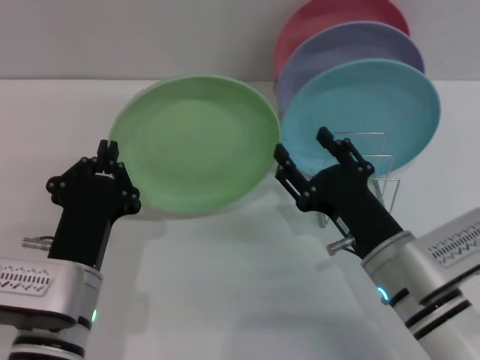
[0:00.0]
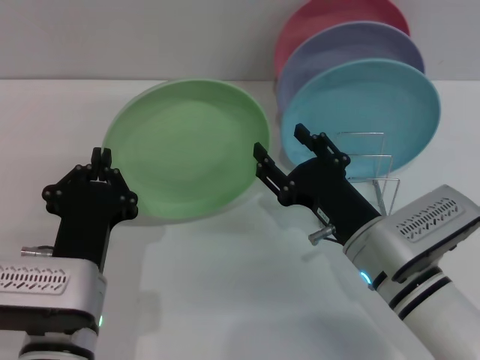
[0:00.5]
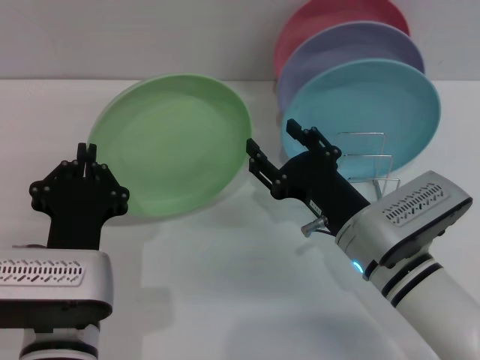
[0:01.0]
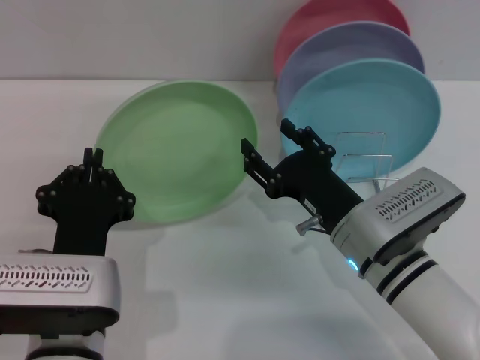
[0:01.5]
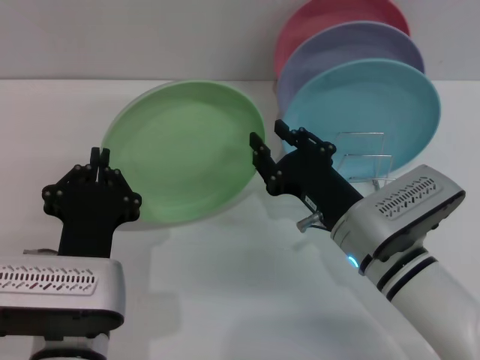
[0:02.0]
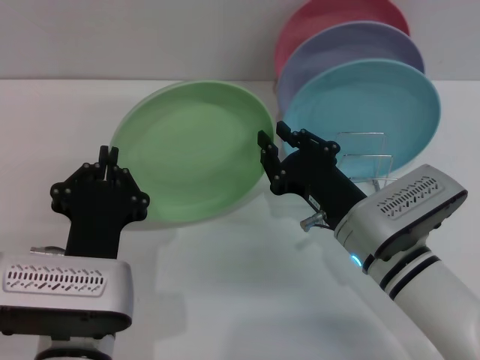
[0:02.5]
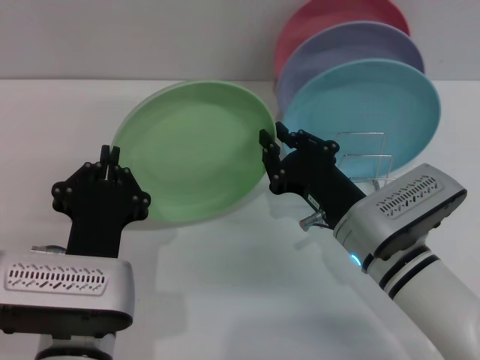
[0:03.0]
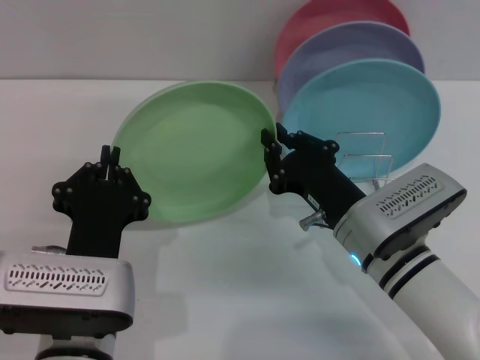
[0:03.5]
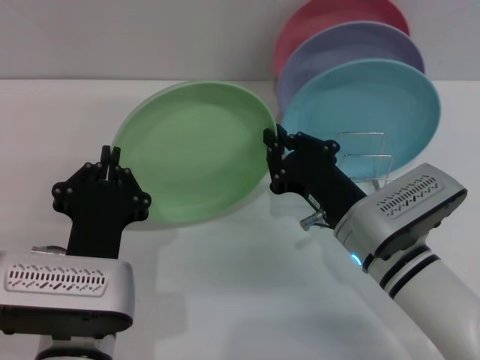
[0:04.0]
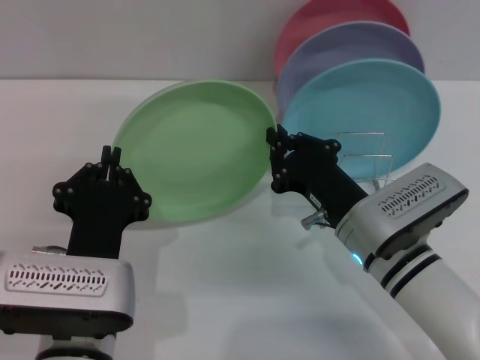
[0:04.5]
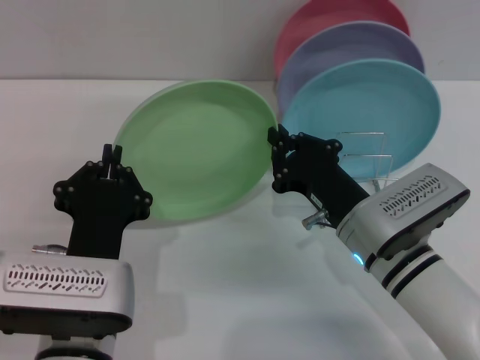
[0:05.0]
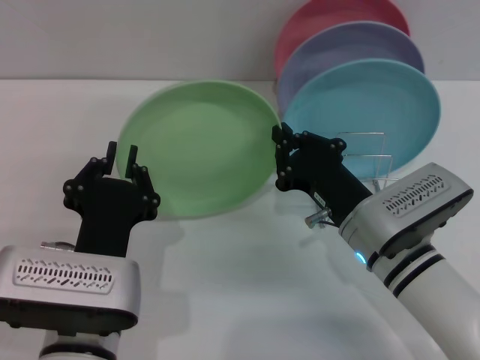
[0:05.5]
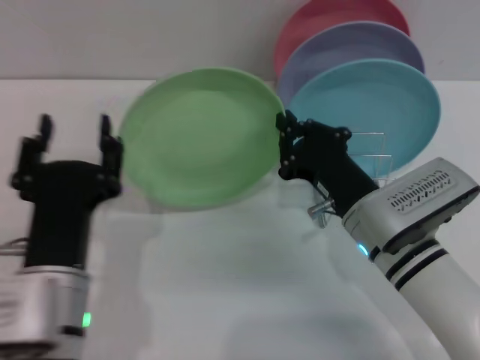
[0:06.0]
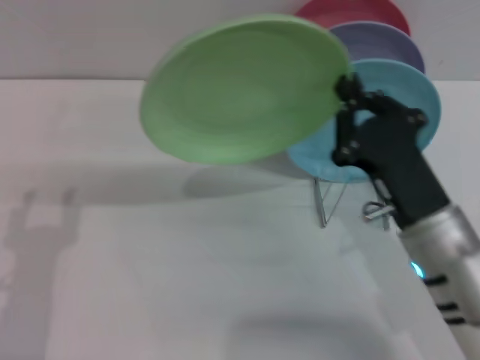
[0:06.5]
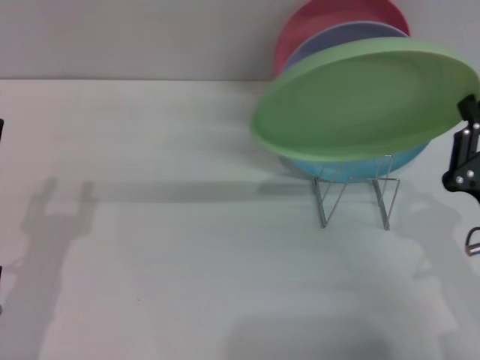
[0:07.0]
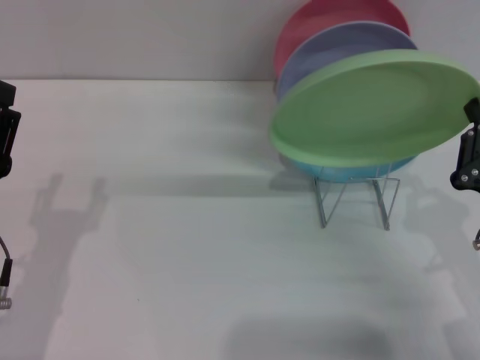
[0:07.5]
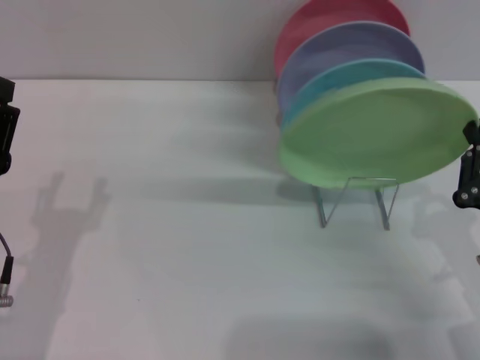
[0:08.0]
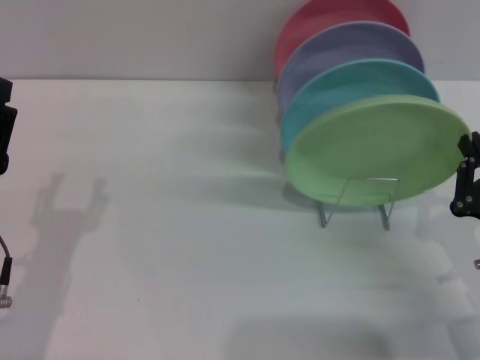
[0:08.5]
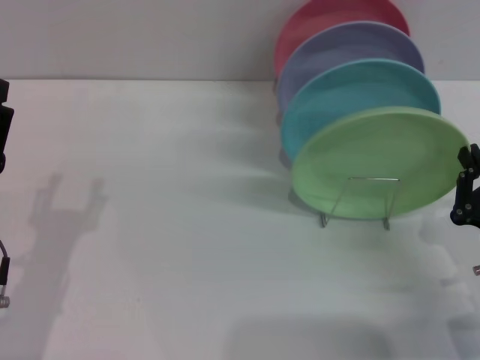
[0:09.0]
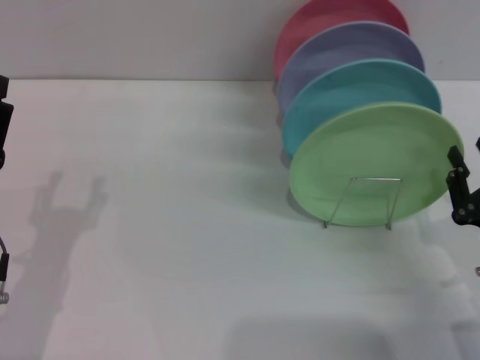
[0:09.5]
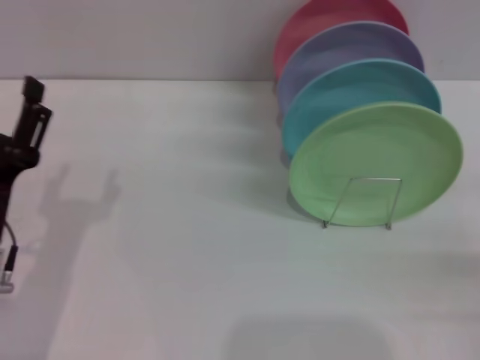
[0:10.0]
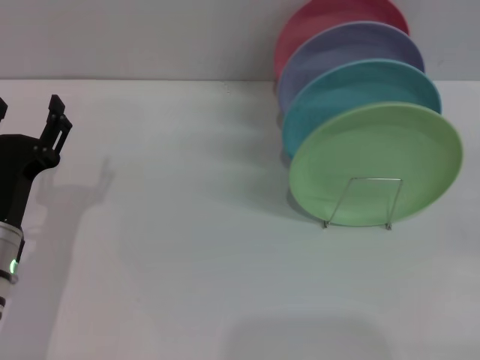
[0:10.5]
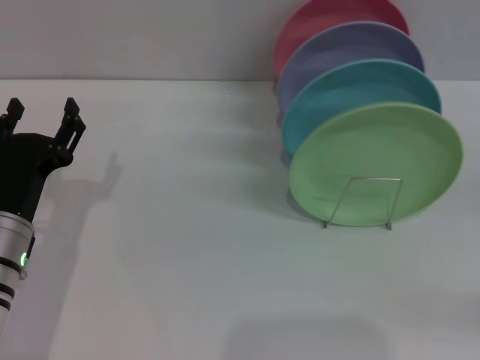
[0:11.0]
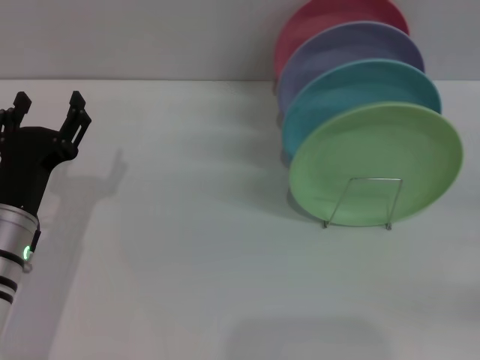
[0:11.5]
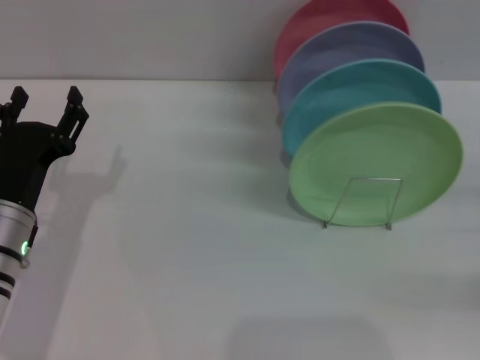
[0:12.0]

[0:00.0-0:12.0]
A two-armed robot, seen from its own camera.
Task of the whole recording: Grip the plate with one hand, pass it to the other, then set it on the shelf.
Step, 0:00.0 to 0:05.5: Pass the plate from the left gripper to the right gripper.
Step, 0:06.5 to 0:09.5: Place the plate on the shelf with the right gripper.
0:00.0 to 0:02.0: The grippers move only a little.
0:02.0 to 0:04.0: The right gripper closes.
0:04.0 to 0:06.0: The left gripper opens.
0:06.0 to 0:08.0: The right gripper travels to the right and backward by about 15 cm. The left gripper moves to the left, approximately 10 cm.
0:08.0 to 0:10.0: The right gripper goes some 10 cm to the right and backward, and opens its fingers.
0:10.0 to 0:12.0: The right gripper moves forward and to the right, approximately 10 cm. The left gripper goes about 5 cm forward.
